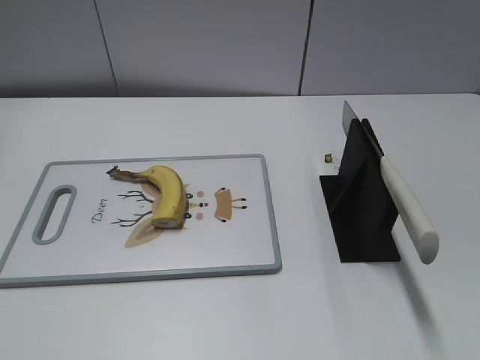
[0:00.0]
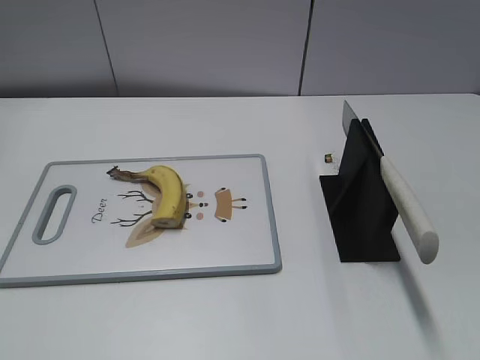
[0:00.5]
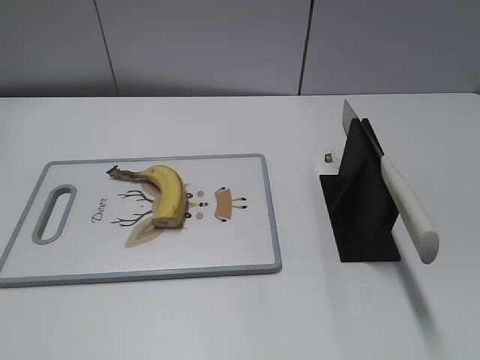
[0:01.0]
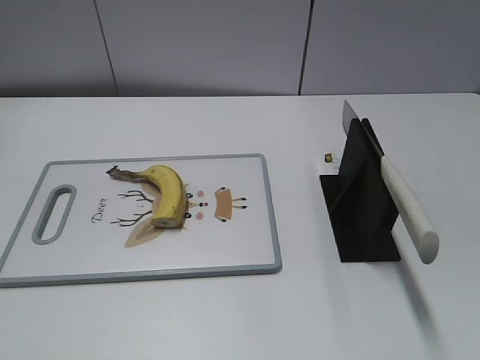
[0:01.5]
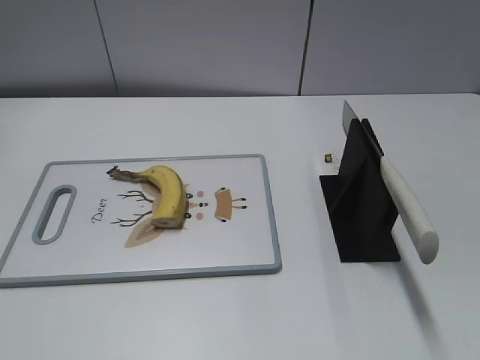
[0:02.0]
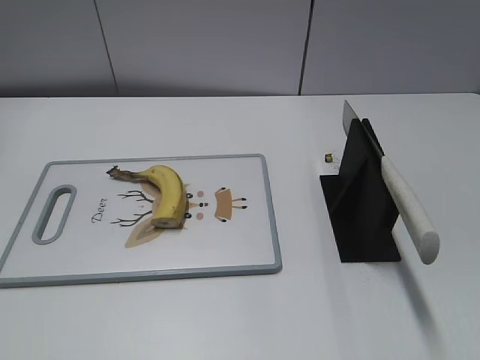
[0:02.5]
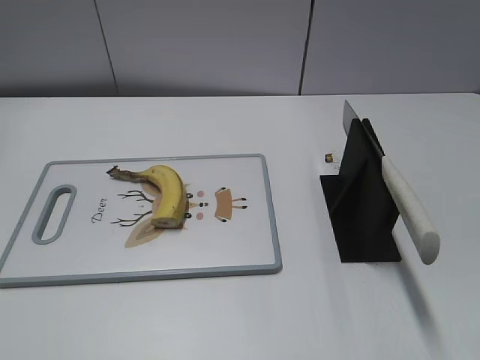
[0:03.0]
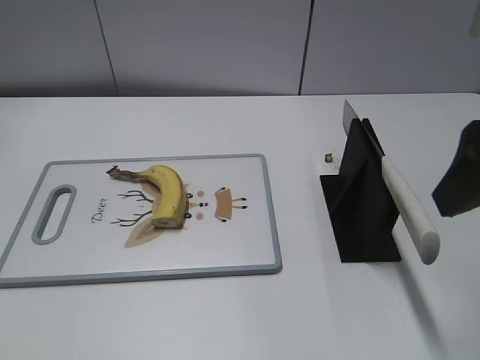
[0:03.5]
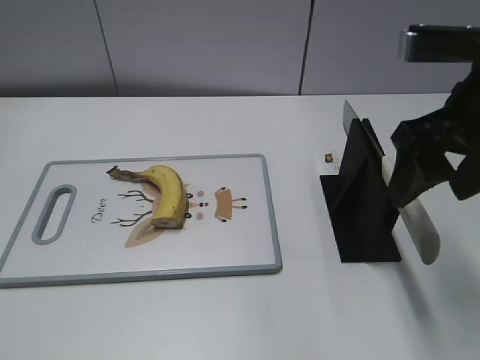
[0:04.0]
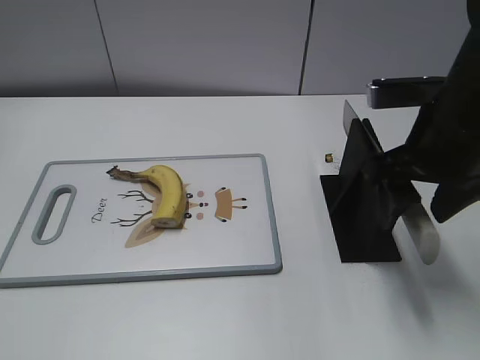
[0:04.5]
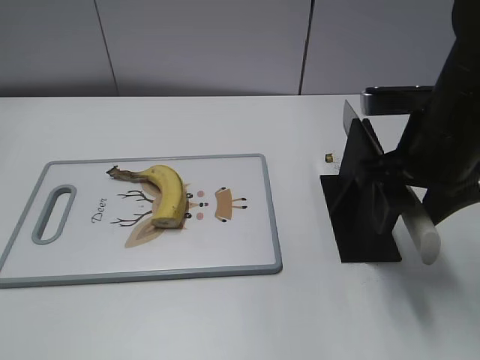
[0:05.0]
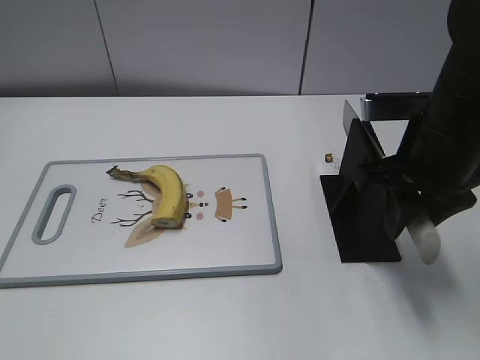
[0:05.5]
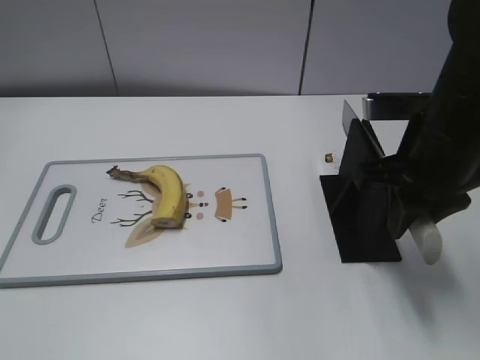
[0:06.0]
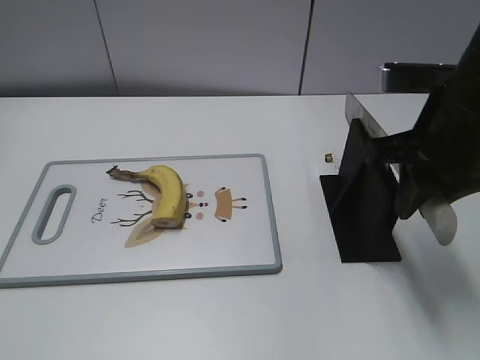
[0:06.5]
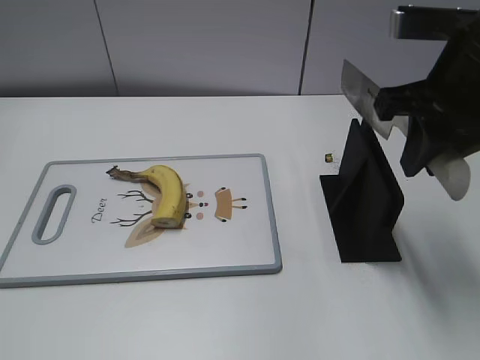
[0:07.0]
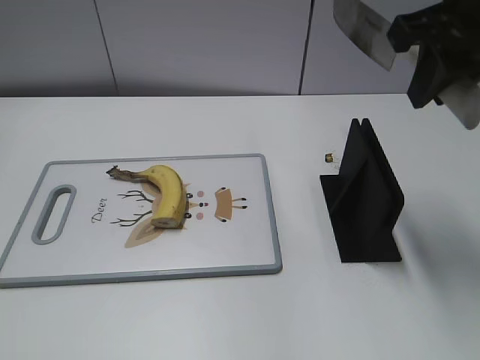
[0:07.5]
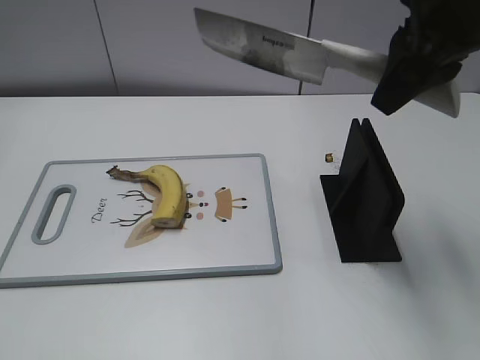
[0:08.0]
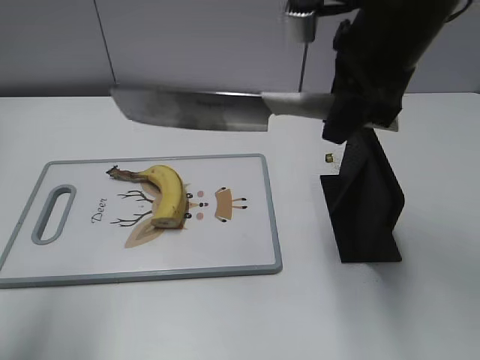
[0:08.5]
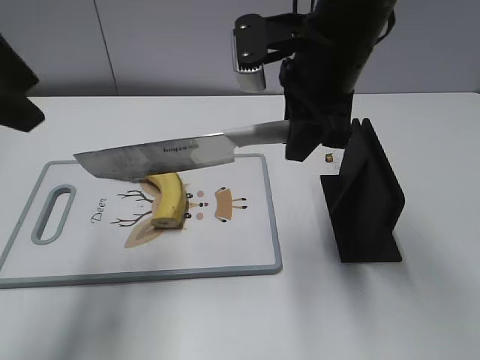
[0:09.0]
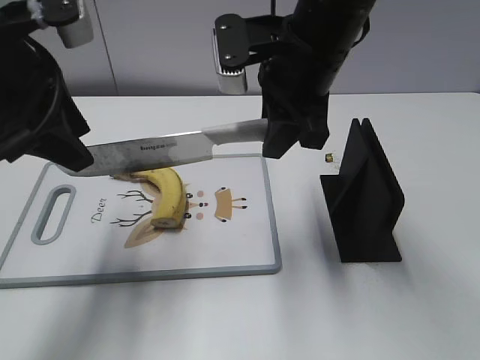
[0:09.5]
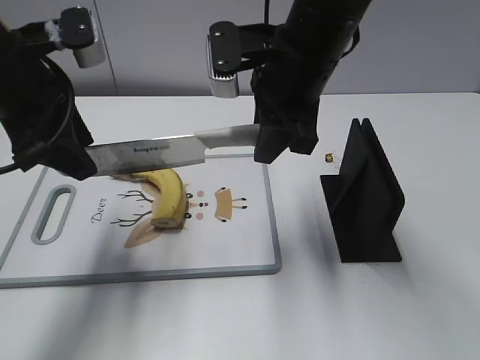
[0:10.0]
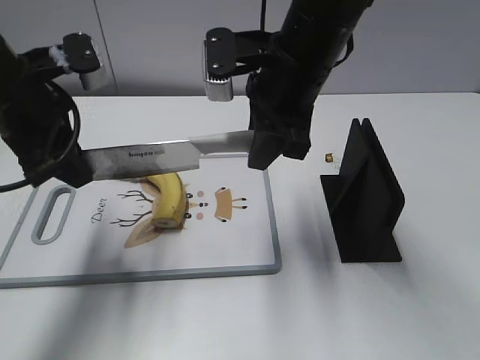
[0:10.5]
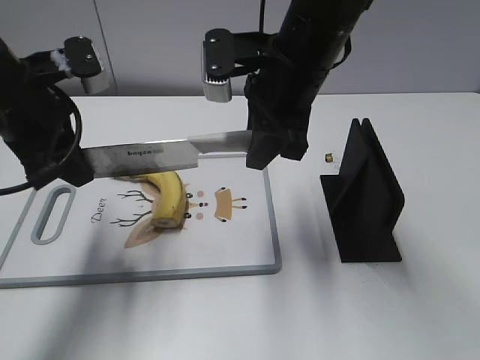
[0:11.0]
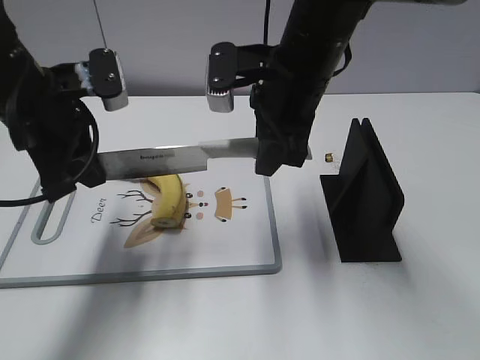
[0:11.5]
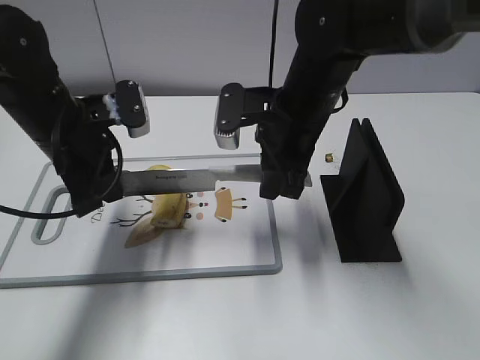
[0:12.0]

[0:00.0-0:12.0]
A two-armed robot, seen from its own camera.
Task of the whole recording: cut banana.
Step, 0:00.0 to 0:07.5: Grab the knife handle with your right hand.
0:02.0 to 0:04.0: The right gripper moves forward and to the left, approximately 25 cm.
0:04.0 to 0:06.0: The right gripper is displaced downward by about 5 cm, and closes up.
0:06.0 to 0:08.0: The left gripper heads forward, covering roughly 5 cm. Meanwhile the right gripper is displaced upward by about 15 cm.
0:08.0 to 0:10.0: The right gripper heads to the left and downward, covering some 15 cm; the left gripper travels forward by about 25 cm.
0:10.0 to 0:12.0: The two grippers go about 10 cm downward. The left gripper closes.

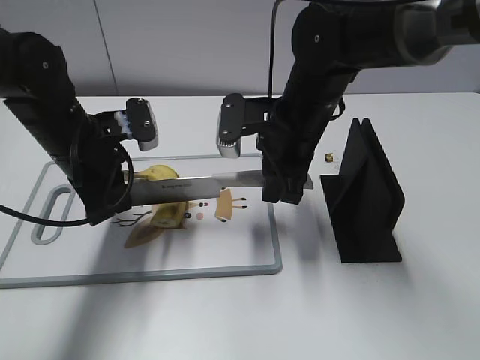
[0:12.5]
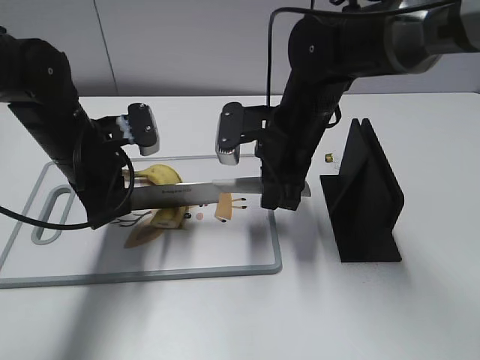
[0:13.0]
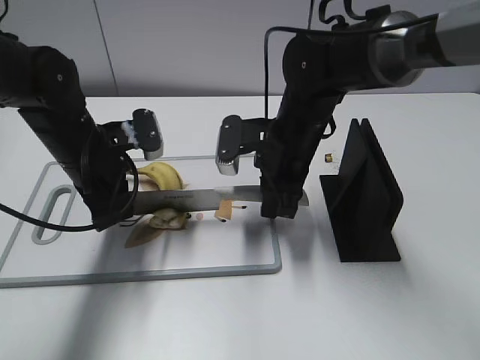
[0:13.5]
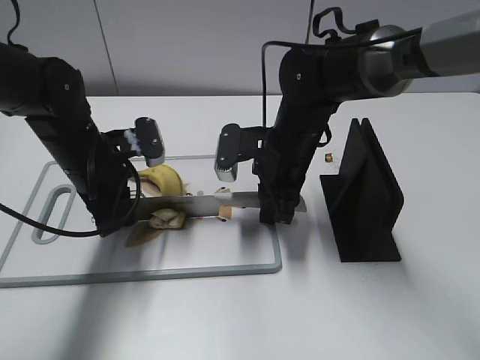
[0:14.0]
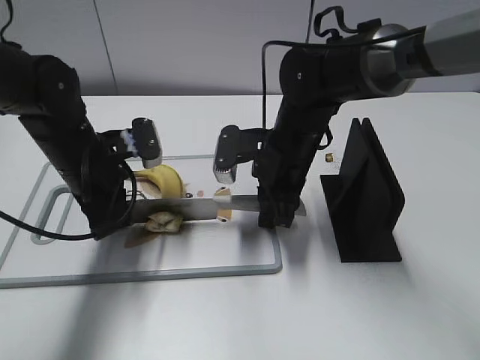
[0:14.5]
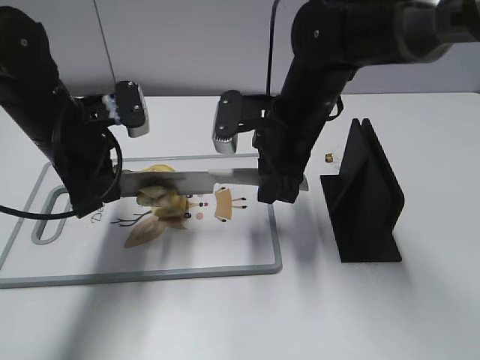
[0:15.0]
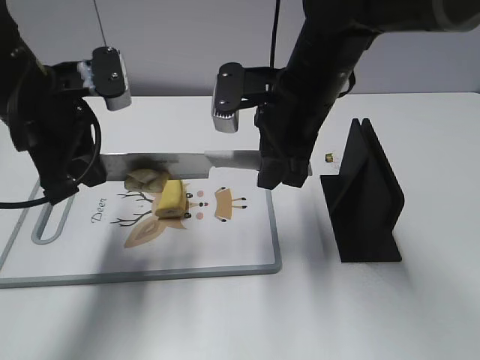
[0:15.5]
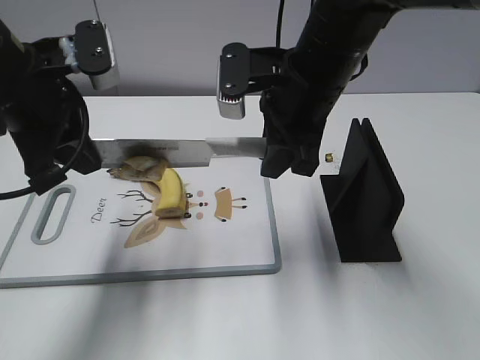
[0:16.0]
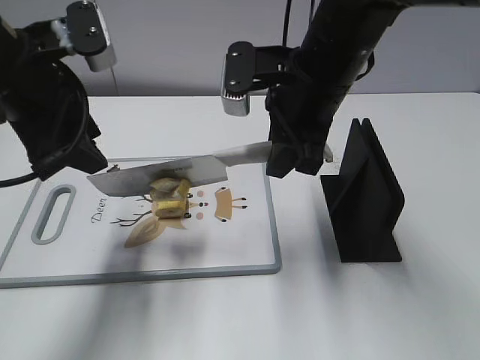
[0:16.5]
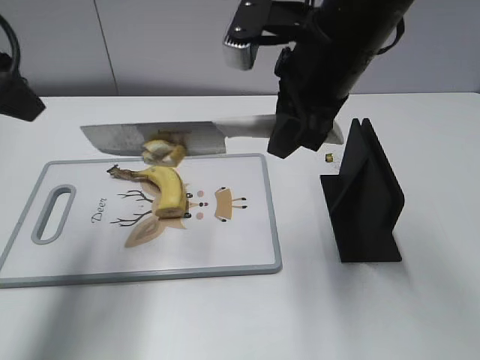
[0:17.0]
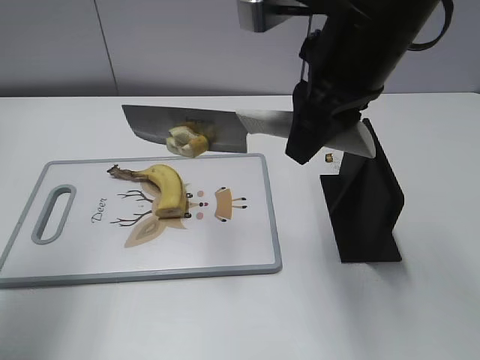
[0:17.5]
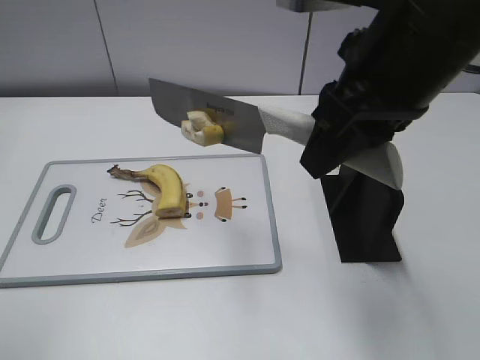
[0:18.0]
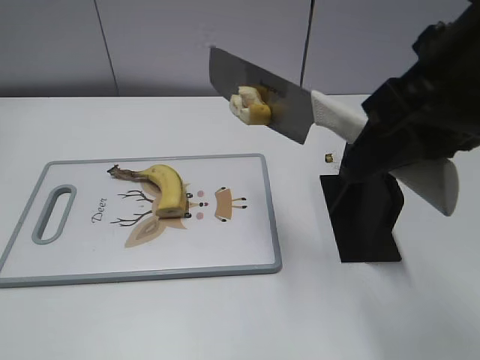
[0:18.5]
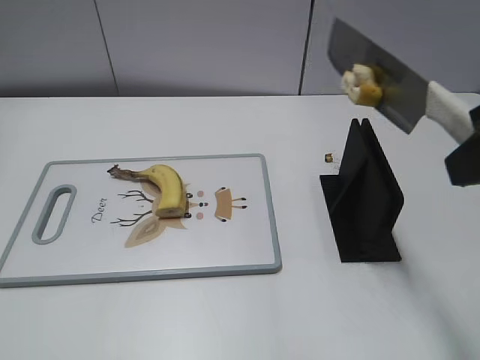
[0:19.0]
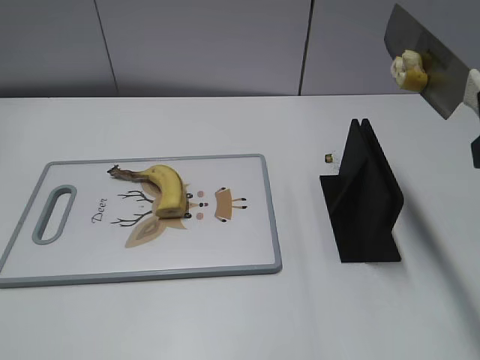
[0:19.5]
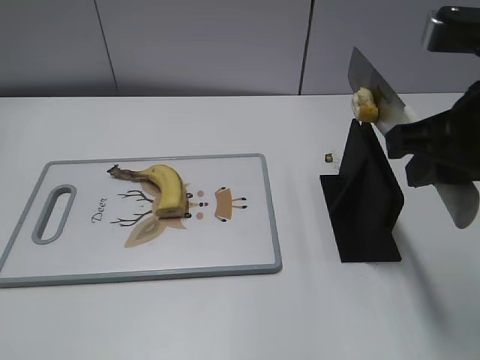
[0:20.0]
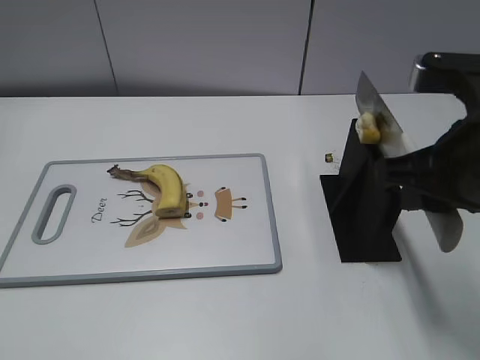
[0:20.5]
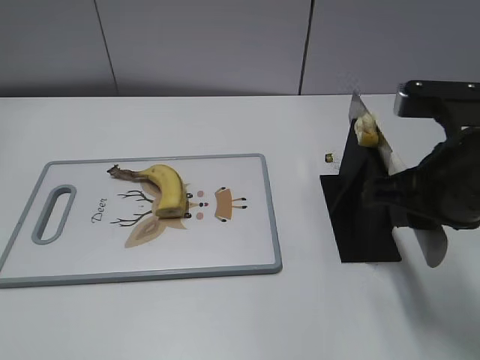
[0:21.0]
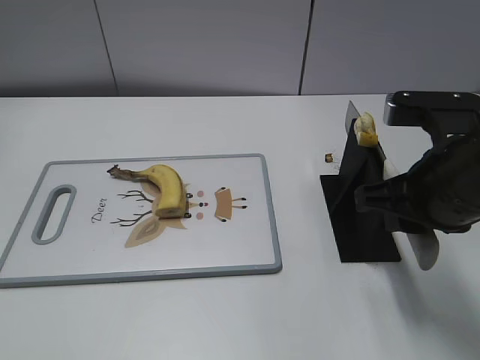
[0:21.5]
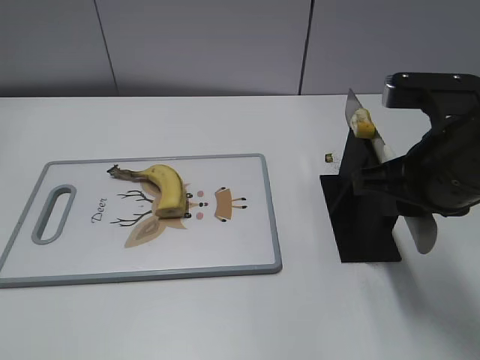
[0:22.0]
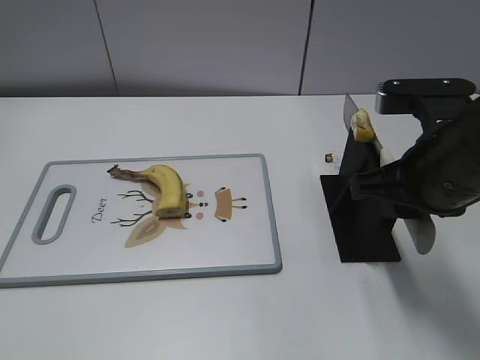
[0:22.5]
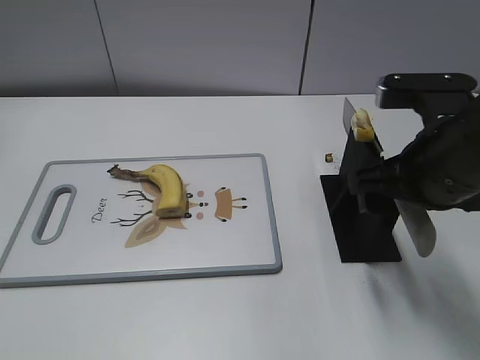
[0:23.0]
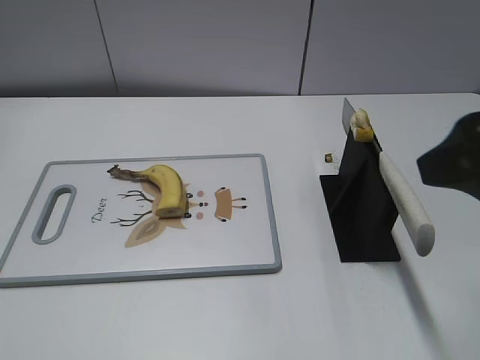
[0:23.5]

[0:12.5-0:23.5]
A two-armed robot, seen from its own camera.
Task of the whole recording: cut banana.
Step, 0:14.0 to 0:18.0: Cut the banana with your left hand.
Step, 0:18.5 to 0:20.0: Lift the knife with your right hand.
0:12.5 to 0:14.5: There are only small adjustments of the grippers.
0:14.5 to 0:16.0: The grippers both shift upward by some 10 cm.
0:16.0 to 0:18.0: The left gripper shifts approximately 20 cm backward, to the left and upward, and opens its fingers; the right gripper heads backward and upward, covering roughly 15 cm.
0:18.0 to 0:20.0: The right gripper heads to the right, covering roughly 5 cm; the left gripper goes some 15 cm backward and downward.
0:20.0 to 0:21.5: The right gripper moves downward, about 5 cm.
0:21.5 to 0:23.5: The right gripper moves upward and backward, some 10 cm, and opens up.

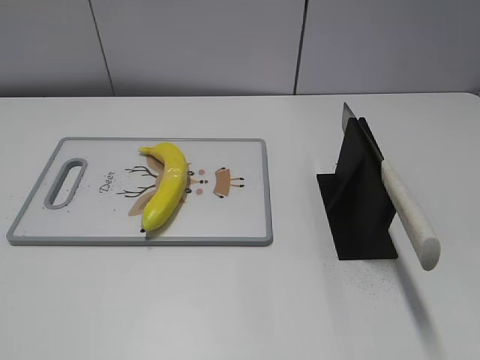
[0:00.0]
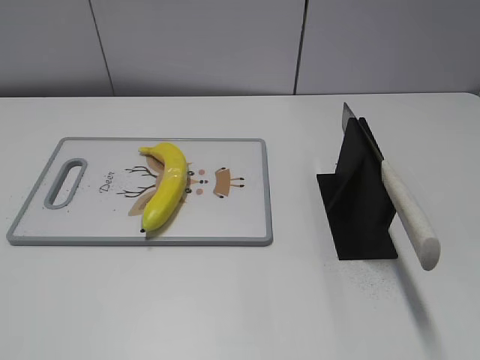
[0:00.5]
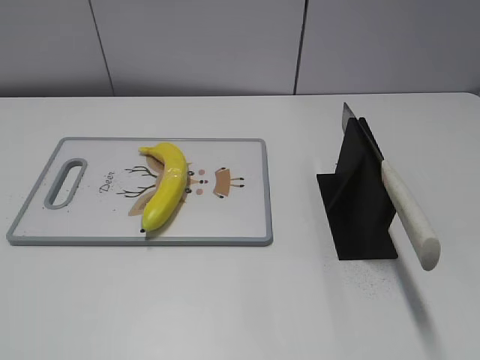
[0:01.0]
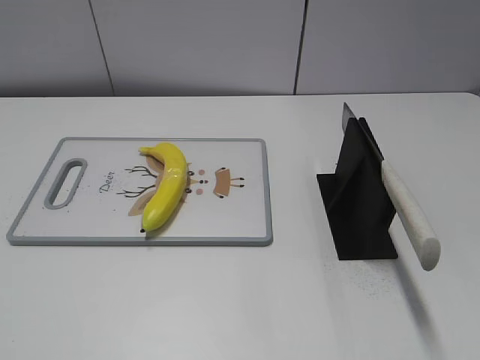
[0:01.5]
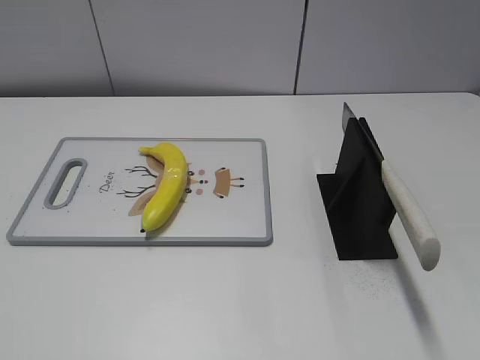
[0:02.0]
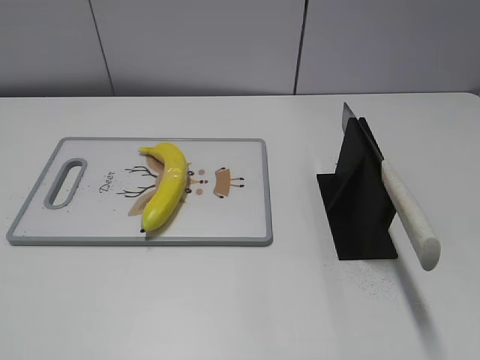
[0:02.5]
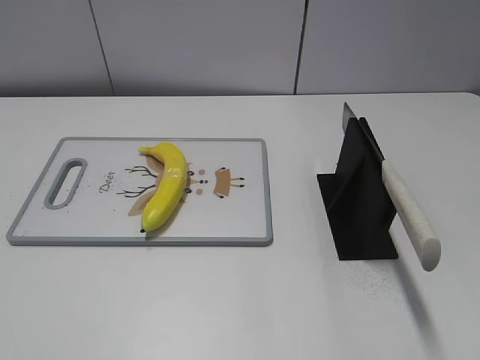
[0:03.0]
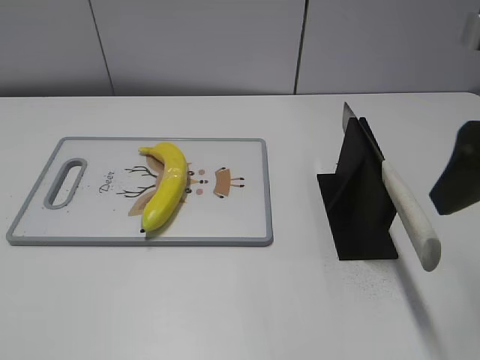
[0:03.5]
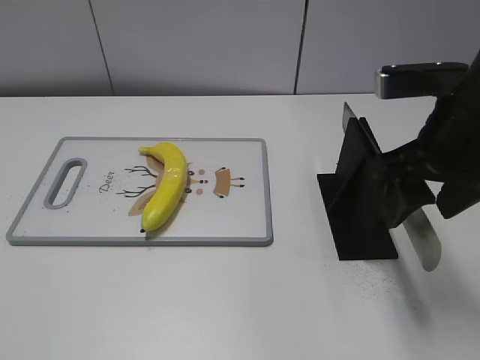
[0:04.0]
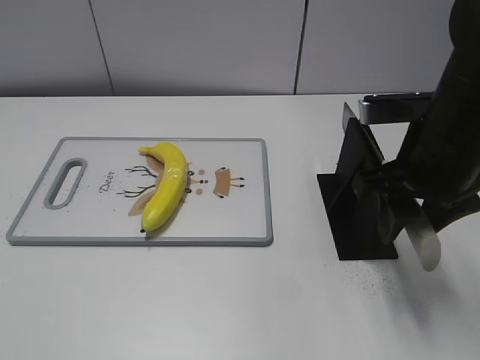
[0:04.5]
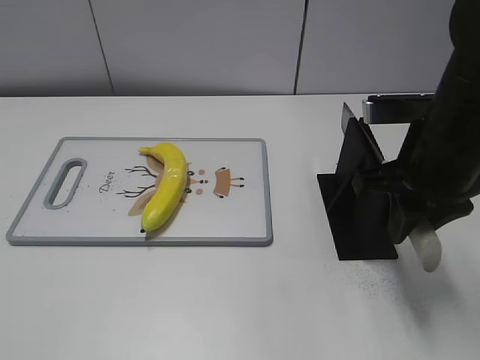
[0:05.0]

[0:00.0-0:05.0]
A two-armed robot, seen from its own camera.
Task of the whole recording: cut plastic banana.
0:02.5 to 0:05.0: The right gripper goes some 25 cm forward, to the left and downward, and closes up.
